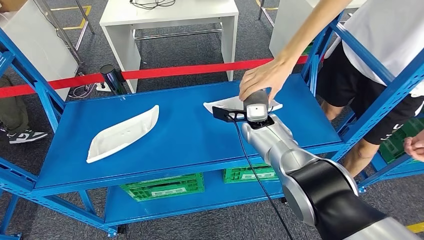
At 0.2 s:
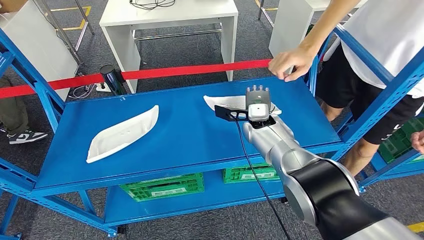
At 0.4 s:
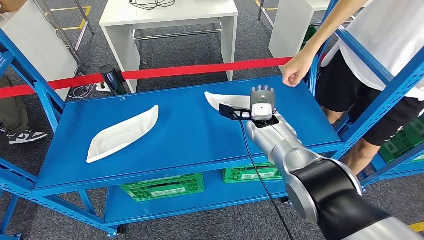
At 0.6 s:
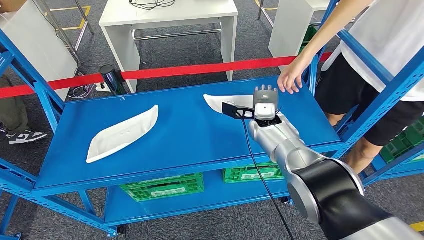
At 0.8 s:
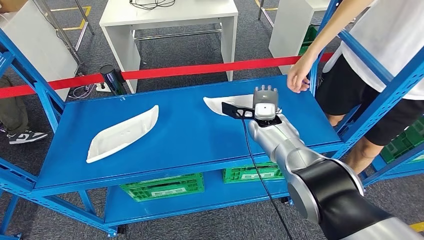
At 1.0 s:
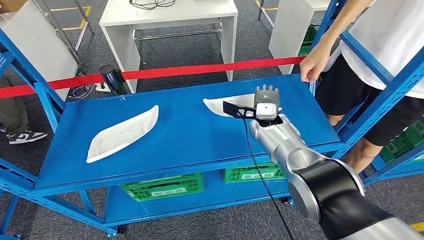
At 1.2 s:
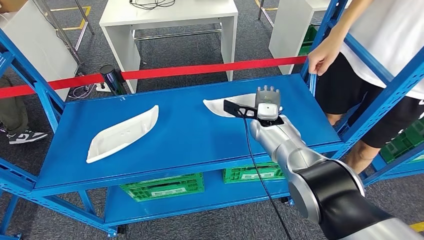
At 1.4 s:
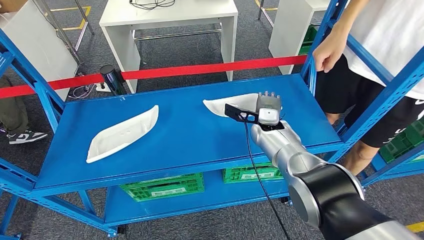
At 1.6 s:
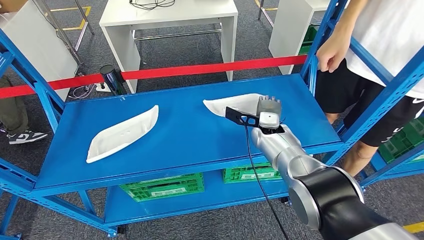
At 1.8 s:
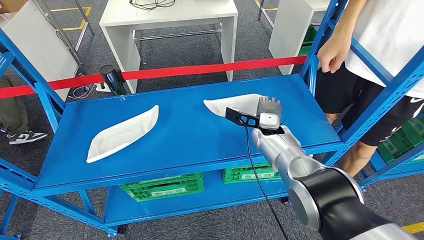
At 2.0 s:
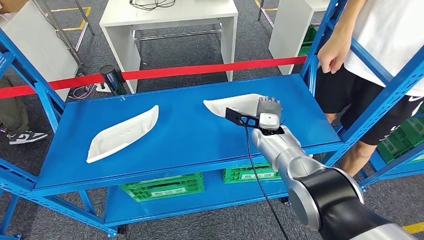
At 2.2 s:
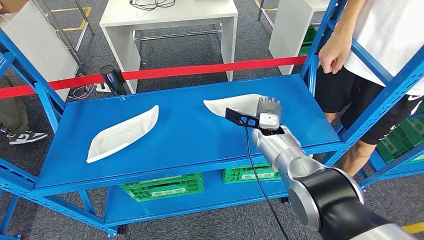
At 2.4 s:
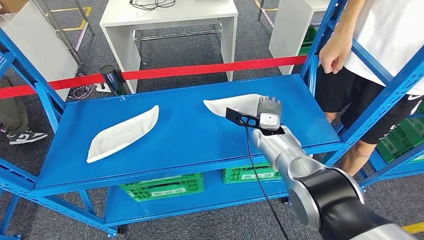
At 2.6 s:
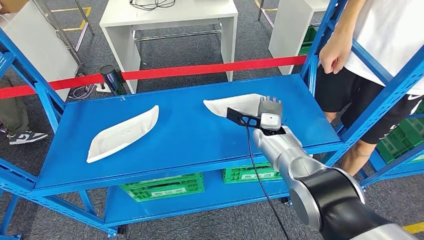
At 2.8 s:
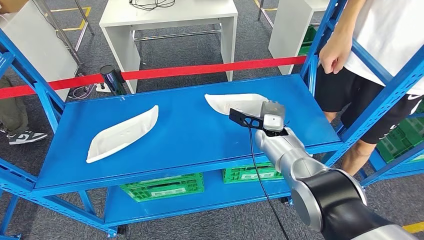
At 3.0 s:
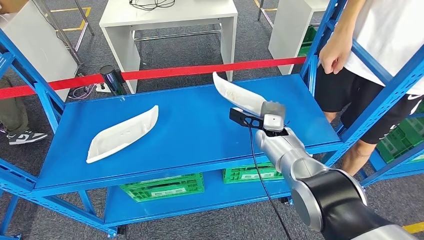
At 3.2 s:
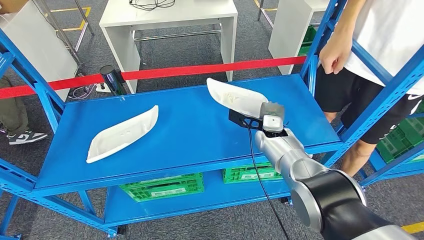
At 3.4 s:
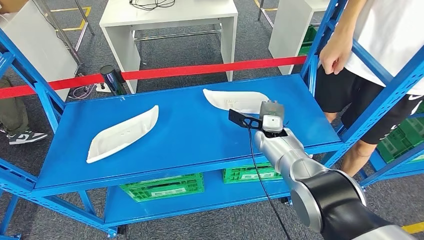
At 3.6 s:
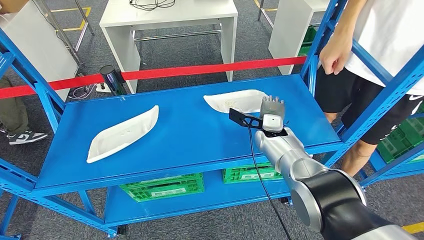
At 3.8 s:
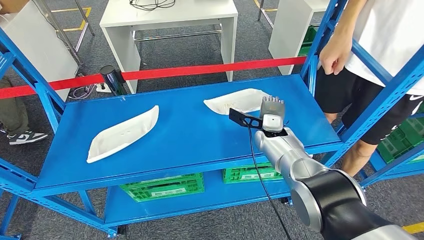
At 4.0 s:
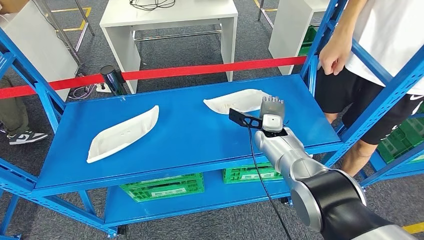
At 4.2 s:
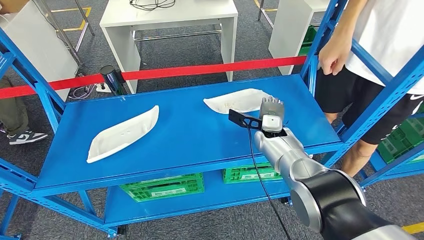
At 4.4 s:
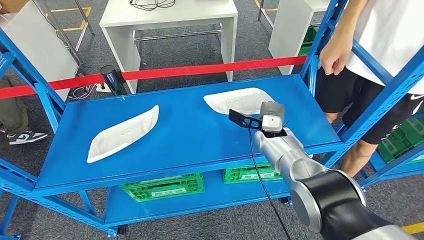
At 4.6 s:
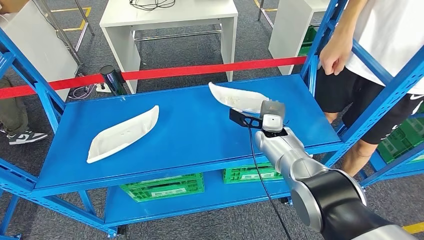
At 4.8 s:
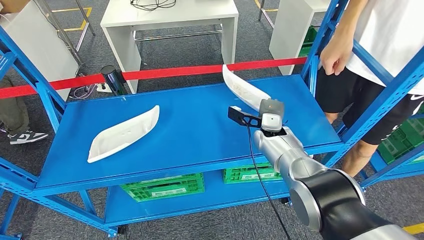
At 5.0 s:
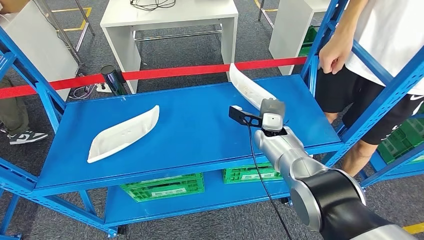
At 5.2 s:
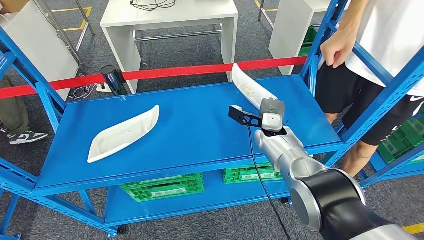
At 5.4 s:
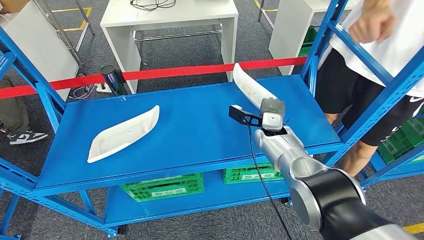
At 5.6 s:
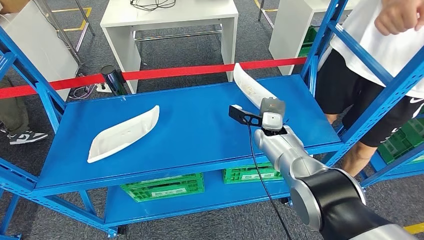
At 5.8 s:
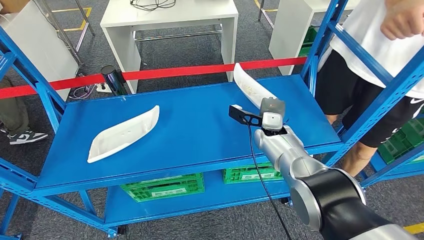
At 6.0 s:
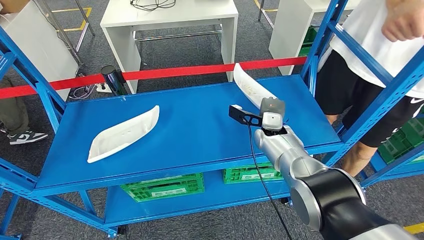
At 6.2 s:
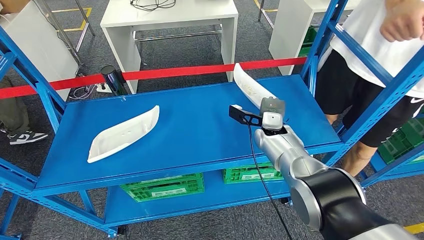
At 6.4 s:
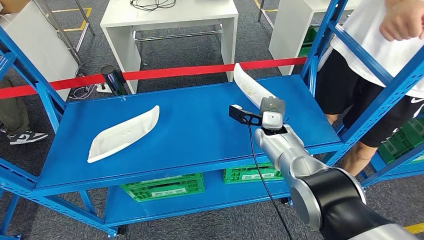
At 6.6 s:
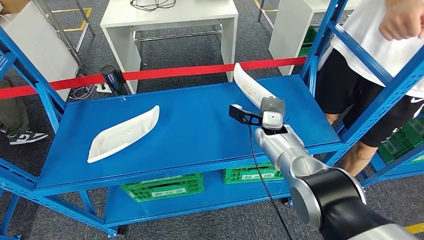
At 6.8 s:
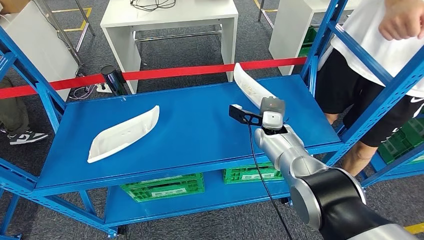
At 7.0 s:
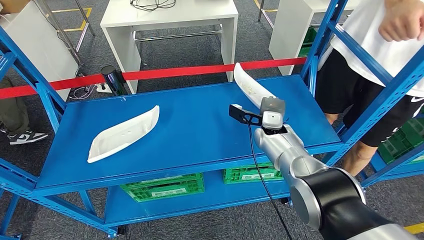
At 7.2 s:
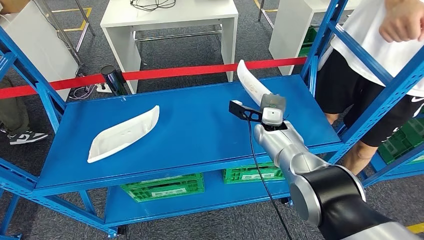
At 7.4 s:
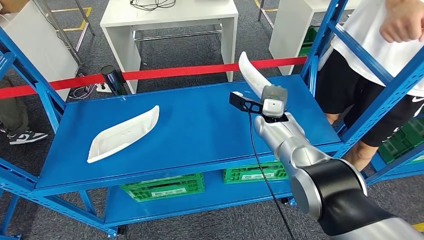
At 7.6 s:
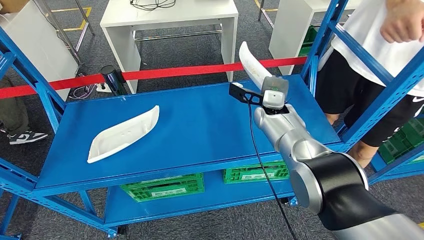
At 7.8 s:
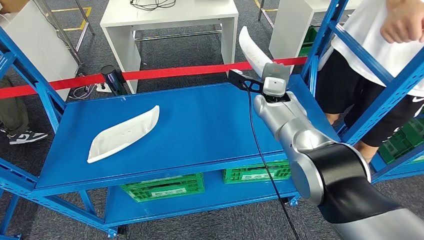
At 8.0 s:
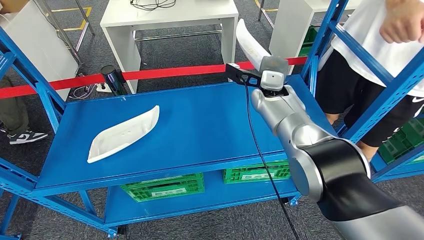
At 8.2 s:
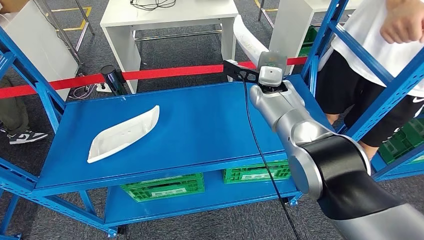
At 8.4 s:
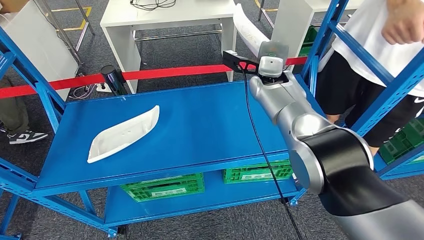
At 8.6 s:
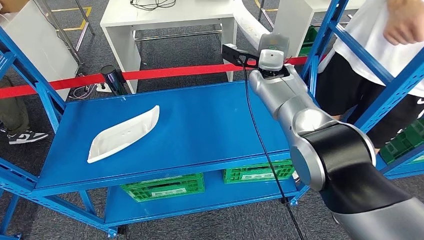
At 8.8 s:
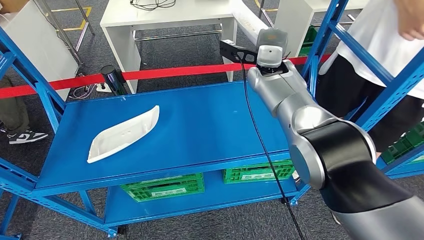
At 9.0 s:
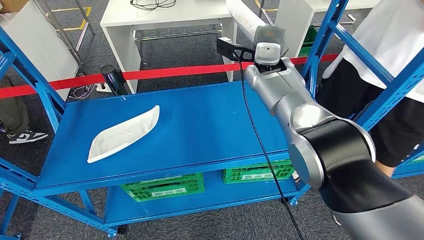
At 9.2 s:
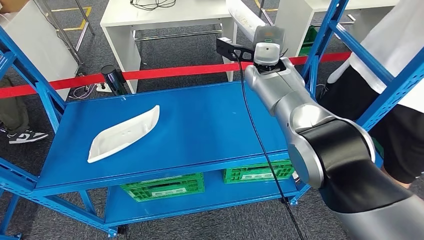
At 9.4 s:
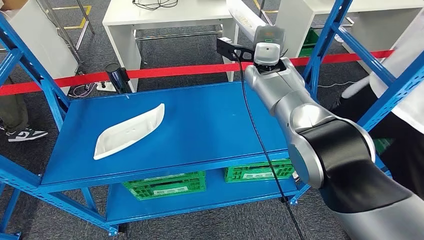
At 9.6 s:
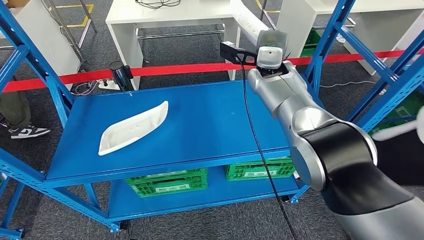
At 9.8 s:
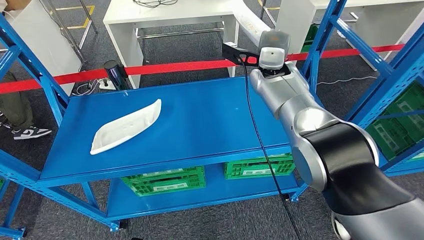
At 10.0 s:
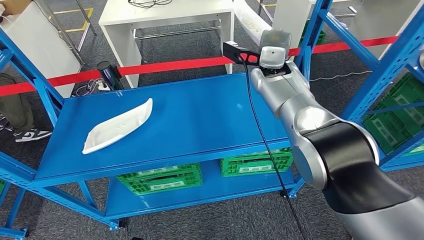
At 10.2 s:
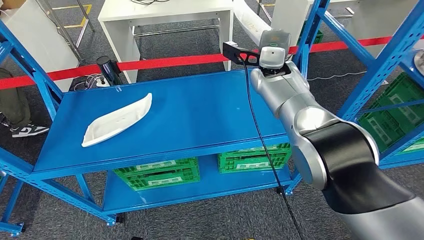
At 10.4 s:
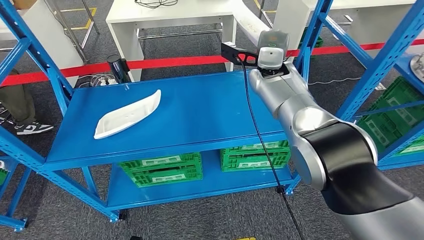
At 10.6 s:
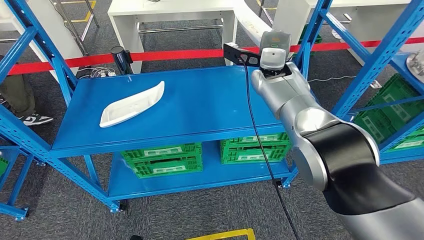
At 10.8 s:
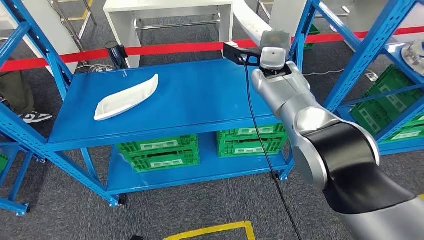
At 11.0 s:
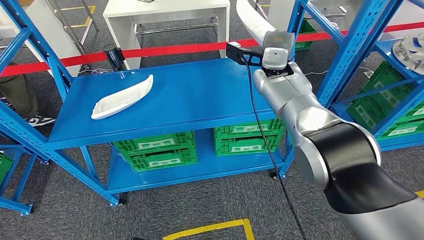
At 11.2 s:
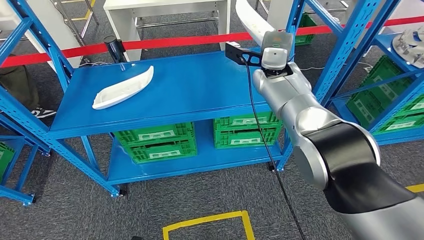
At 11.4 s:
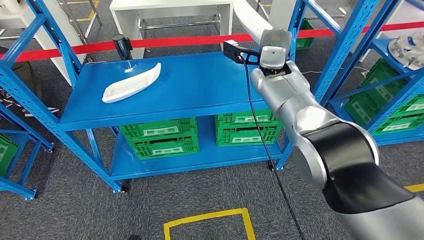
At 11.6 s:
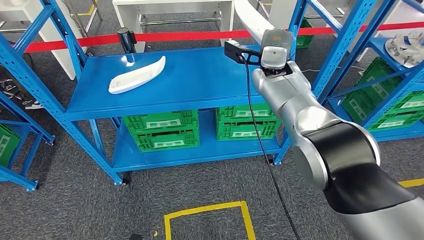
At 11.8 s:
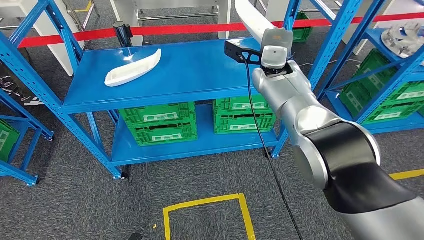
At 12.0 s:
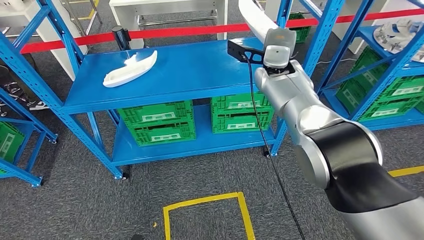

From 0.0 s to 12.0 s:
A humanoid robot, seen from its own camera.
Step, from 0.0 s to 8.6 s: Pick up the small component from the shelf.
From 0.0 s to 3.0 s: There are only small adjustments of the hands.
From 3.0 s to 6.0 s: Both hands stay put.
From 6.0 s to 7.6 s: The right hand moves upward, some 5 cm.

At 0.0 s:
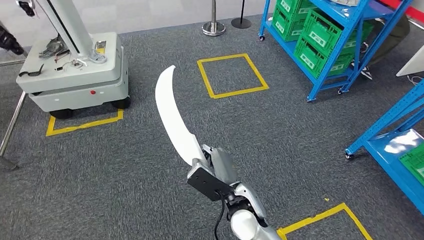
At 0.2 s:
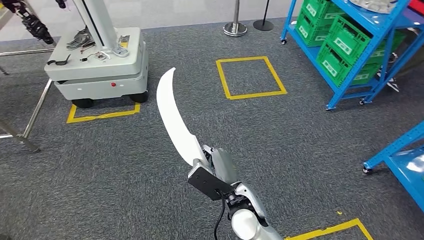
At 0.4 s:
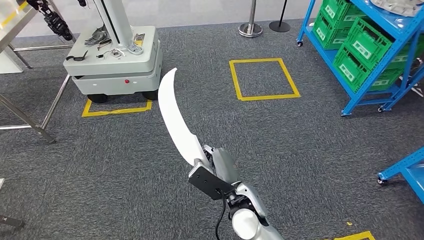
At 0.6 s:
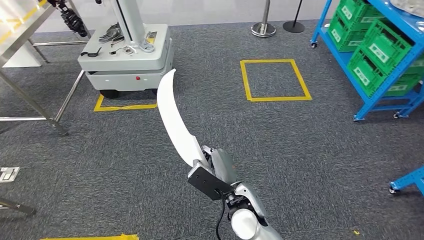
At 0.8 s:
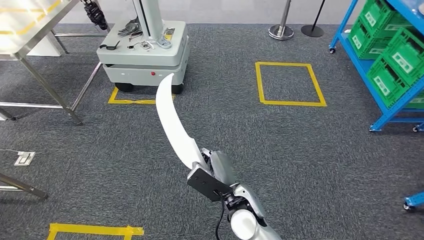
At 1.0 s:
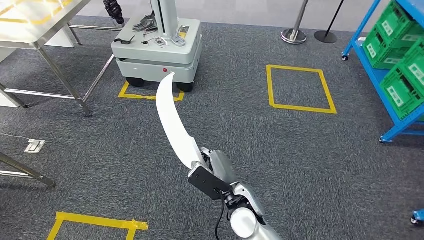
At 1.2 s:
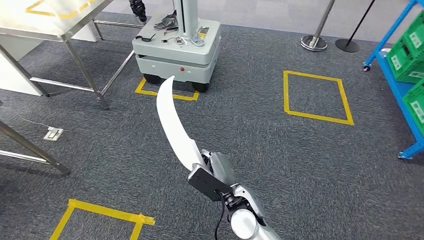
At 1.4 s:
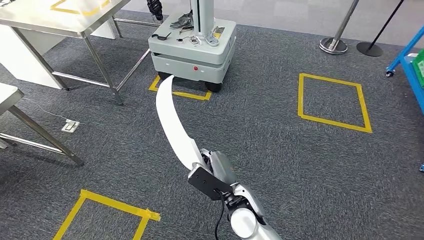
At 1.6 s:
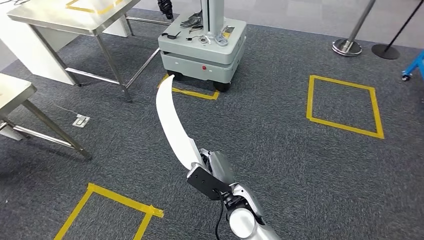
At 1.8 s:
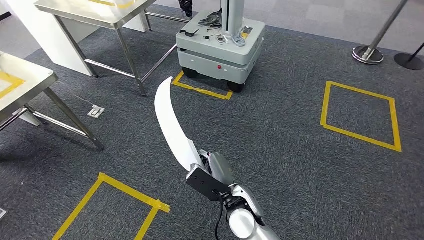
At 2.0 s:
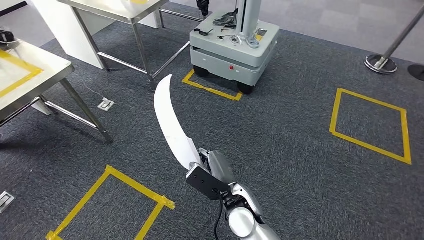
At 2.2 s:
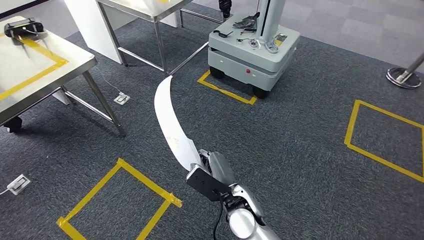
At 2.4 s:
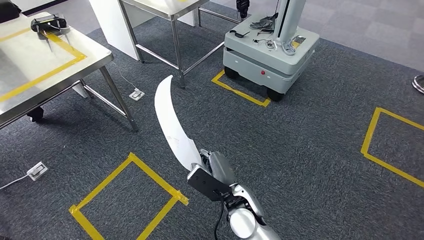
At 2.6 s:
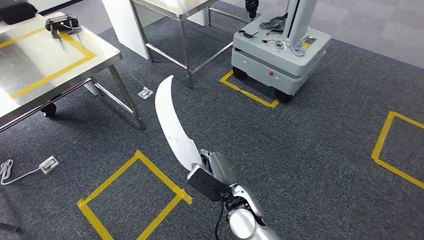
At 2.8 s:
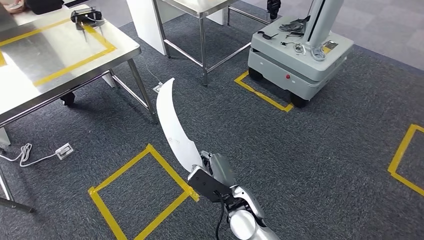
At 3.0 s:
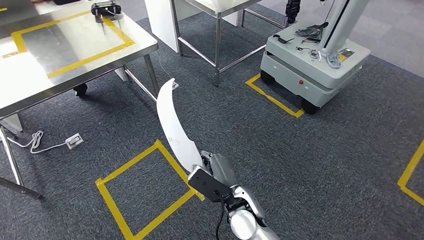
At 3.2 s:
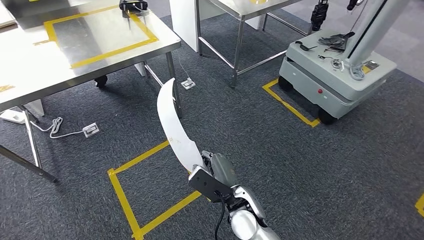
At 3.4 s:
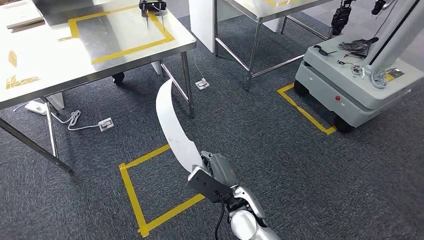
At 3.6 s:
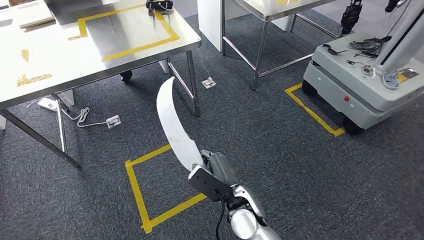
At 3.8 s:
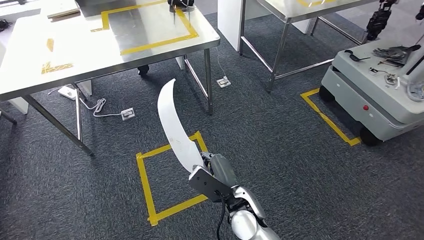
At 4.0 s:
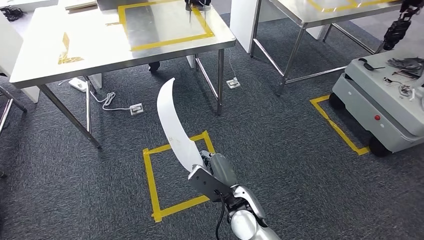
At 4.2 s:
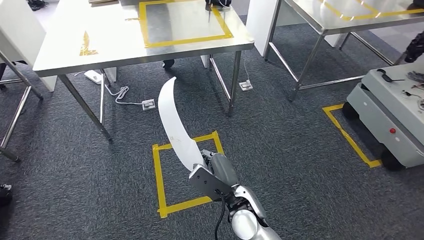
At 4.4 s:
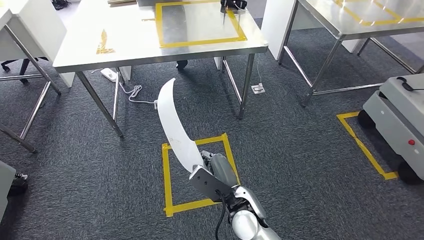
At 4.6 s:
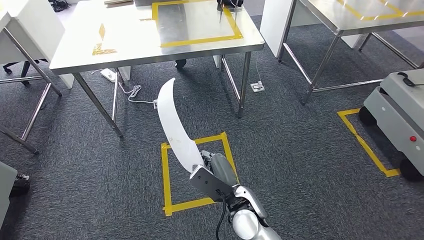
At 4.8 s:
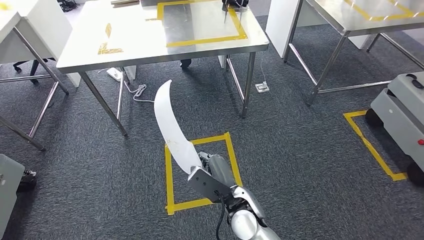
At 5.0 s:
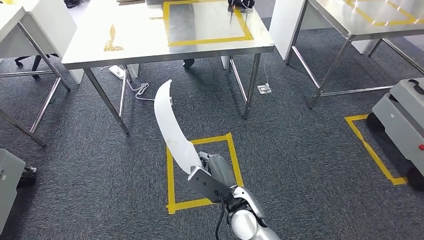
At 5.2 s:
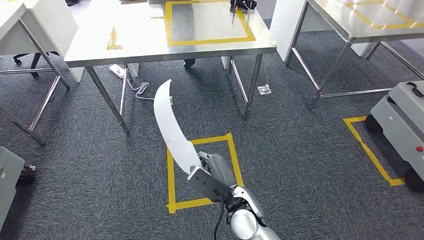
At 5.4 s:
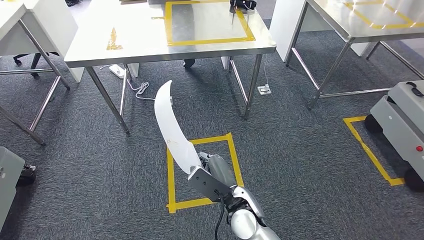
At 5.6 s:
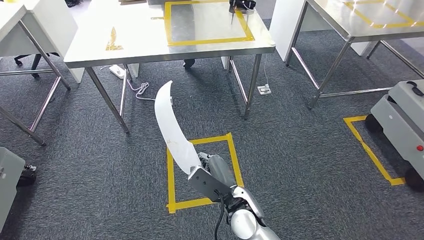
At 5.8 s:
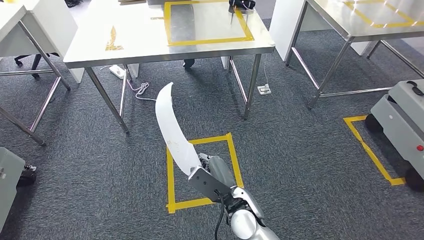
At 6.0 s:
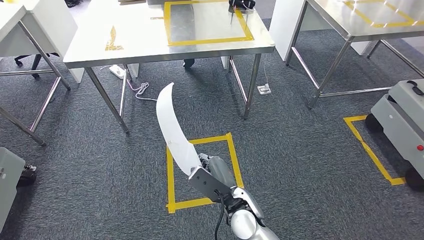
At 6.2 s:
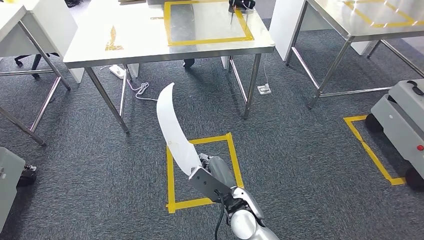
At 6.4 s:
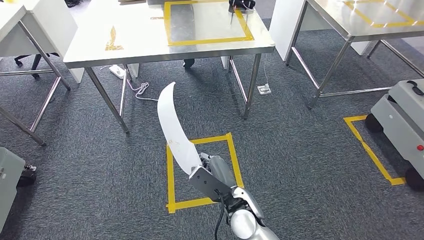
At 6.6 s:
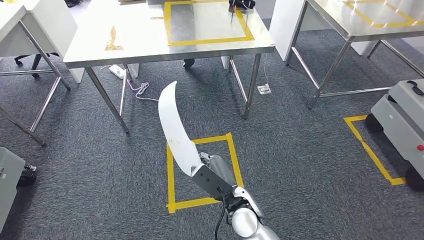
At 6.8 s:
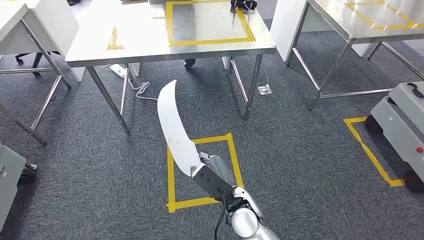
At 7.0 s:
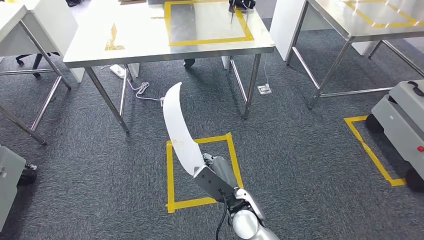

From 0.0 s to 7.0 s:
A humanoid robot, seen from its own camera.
From 5.6 s to 7.0 s: The hands make only small movements.
